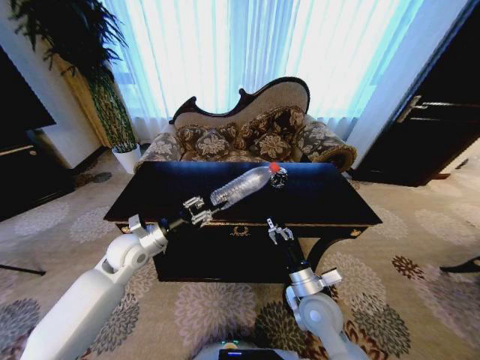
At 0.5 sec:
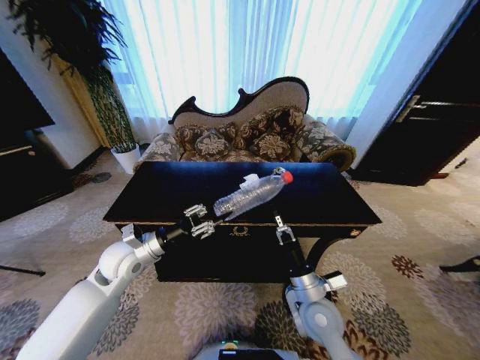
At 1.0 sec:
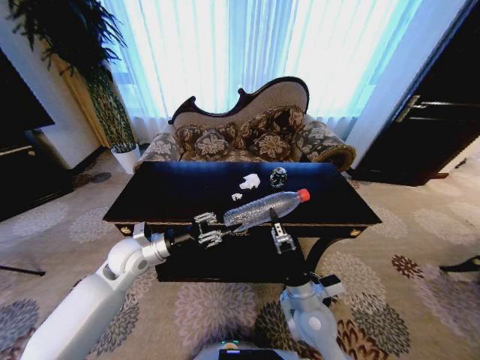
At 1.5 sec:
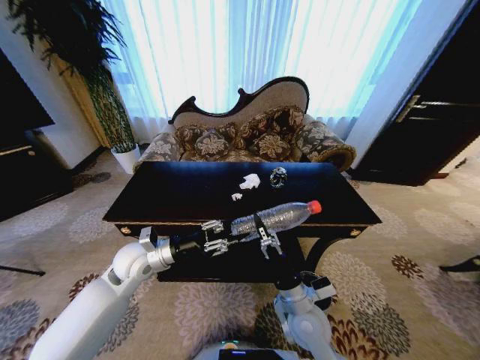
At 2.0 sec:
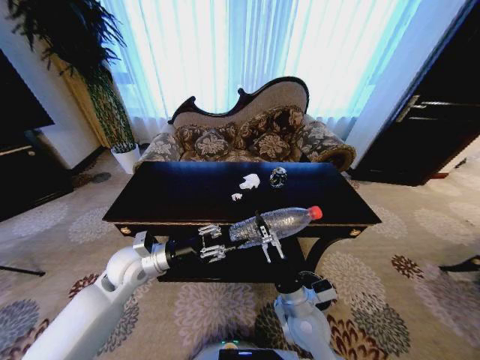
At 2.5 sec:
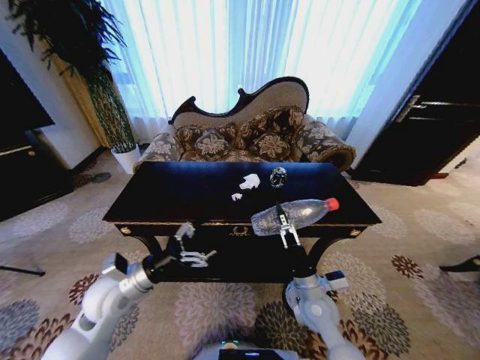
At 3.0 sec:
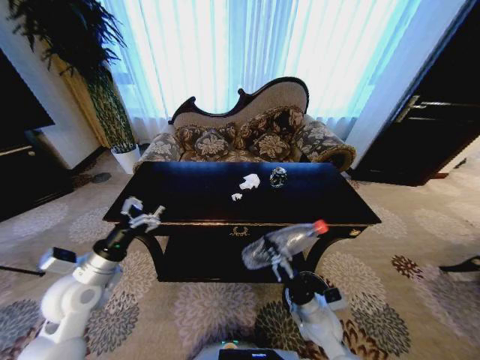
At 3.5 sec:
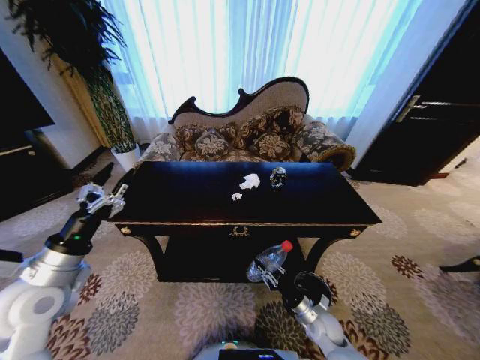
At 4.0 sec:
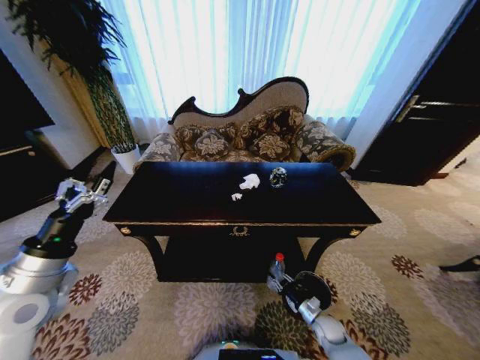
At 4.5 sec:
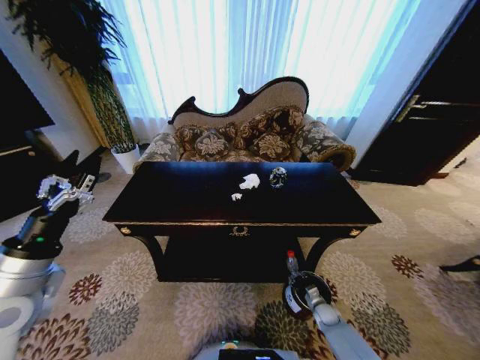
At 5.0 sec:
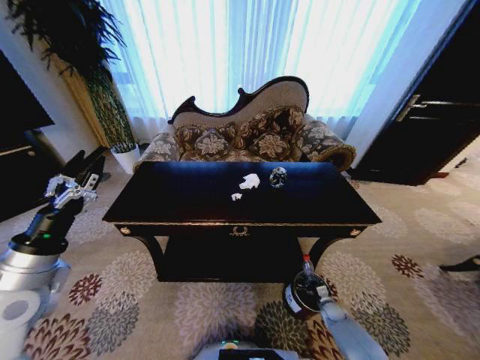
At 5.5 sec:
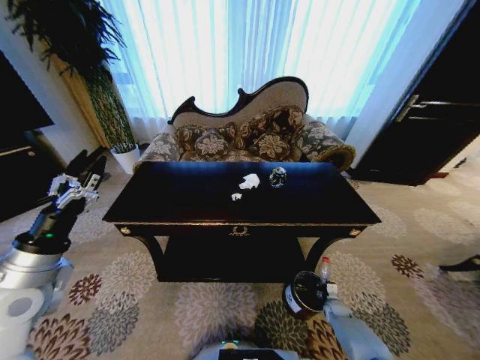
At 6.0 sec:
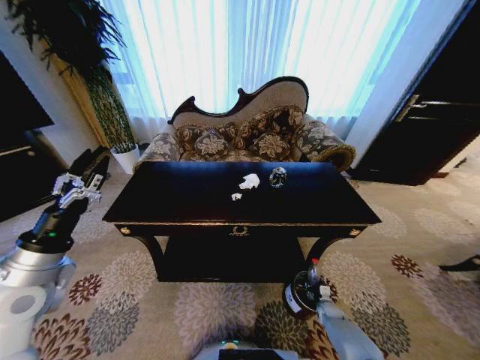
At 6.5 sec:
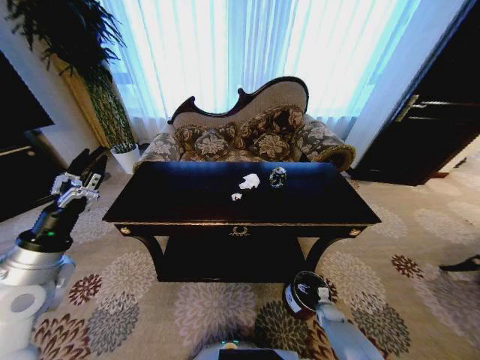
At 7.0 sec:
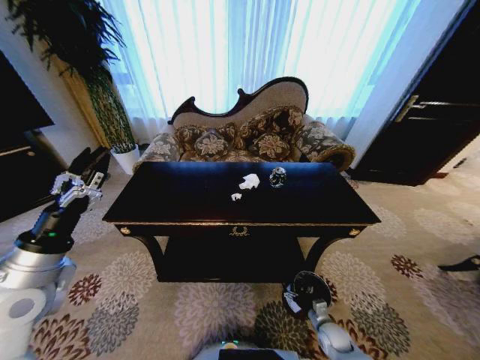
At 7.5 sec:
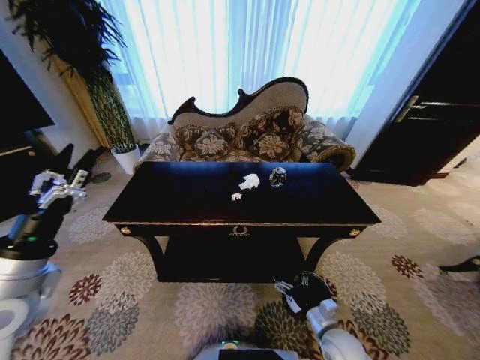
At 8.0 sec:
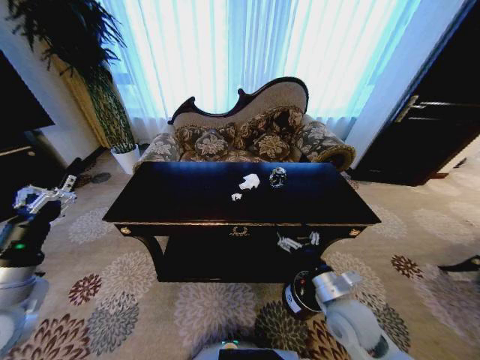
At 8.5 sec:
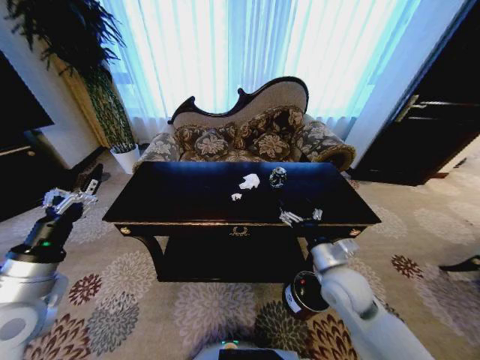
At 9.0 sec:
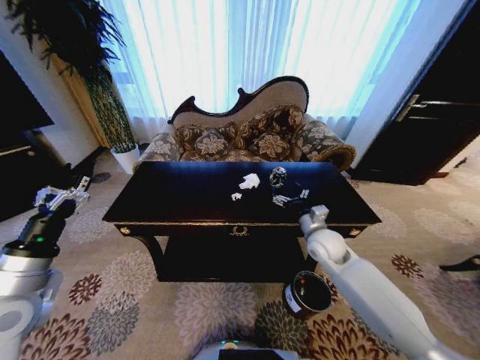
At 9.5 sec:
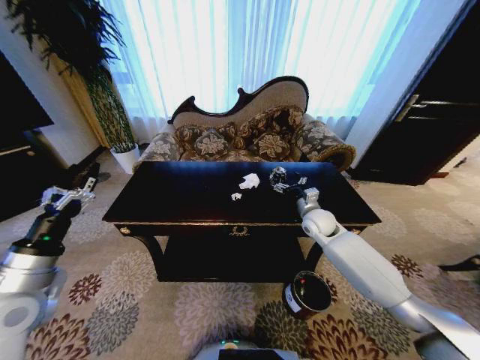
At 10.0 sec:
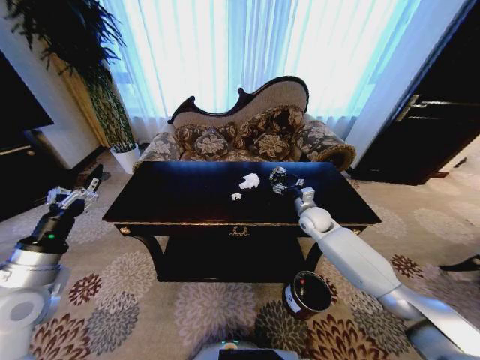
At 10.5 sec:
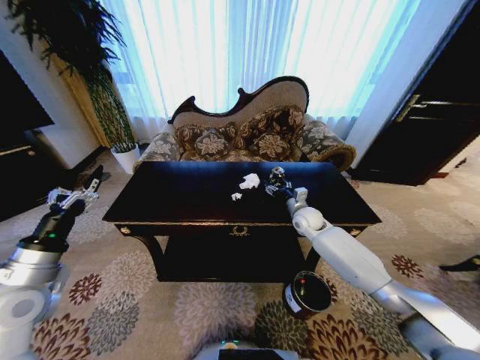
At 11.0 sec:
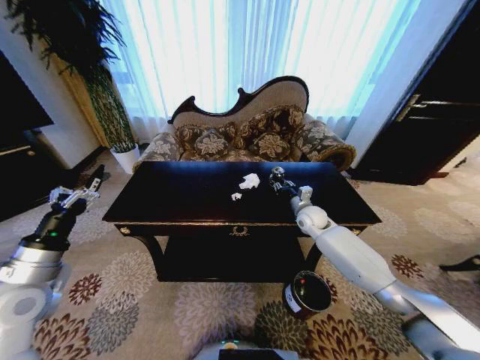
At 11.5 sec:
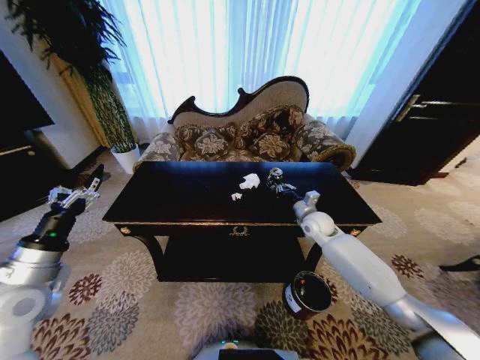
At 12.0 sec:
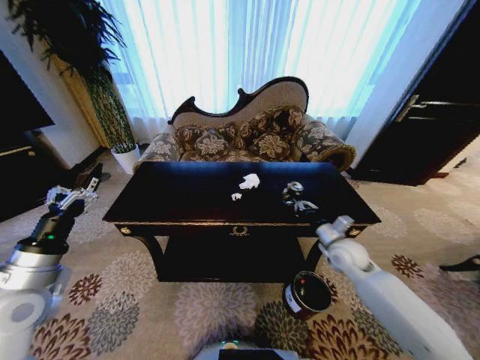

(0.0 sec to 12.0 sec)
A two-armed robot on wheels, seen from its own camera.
Task of the whole recording: Move to the front of the table and place the trash on the table into the trash bin.
0.0 sec - 2.0 sec: The right gripper closes its fingers.
2.0 sec - 4.0 sec: The right gripper shifts approximately 30 cm downward and to the right. The left gripper travels to the left, backward and upward by approximately 15 cm, and opens up.
4.0 sec - 6.0 sec: The right gripper heads to the right, downward and forward, covering approximately 10 cm.
6.0 sec - 8.0 sec: The right gripper travels upward and to the left by about 35 cm, and opens its fingers.
8.0 sec - 10.0 sec: The right gripper travels forward by roughly 30 cm.
10.0 sec - 12.0 sec: The right gripper goes some 15 cm backward and to the right, and closes up.

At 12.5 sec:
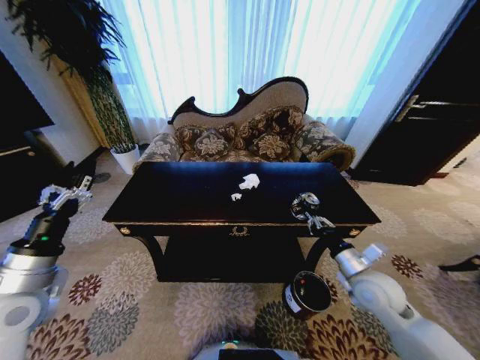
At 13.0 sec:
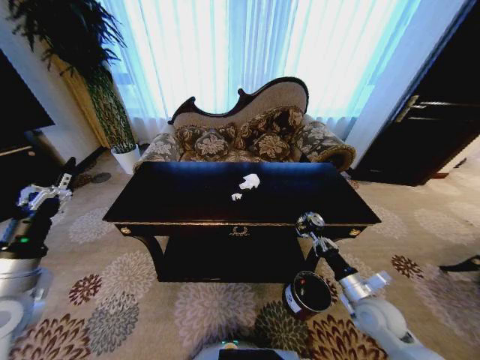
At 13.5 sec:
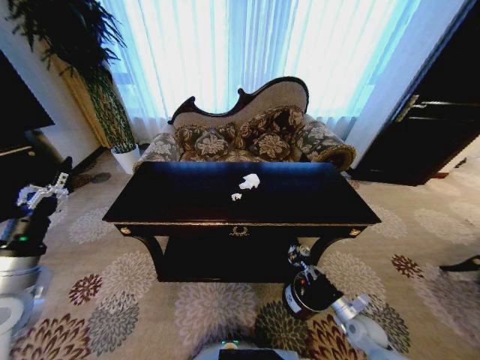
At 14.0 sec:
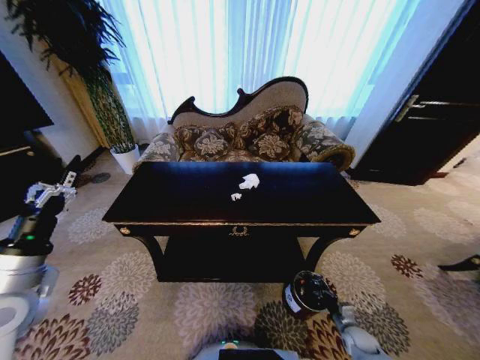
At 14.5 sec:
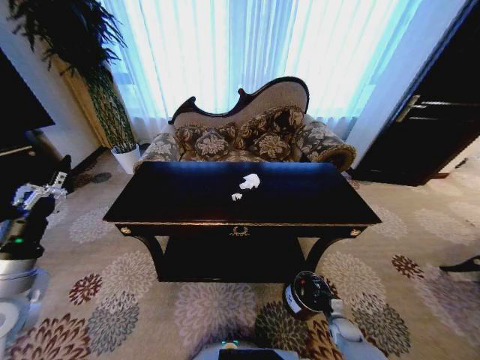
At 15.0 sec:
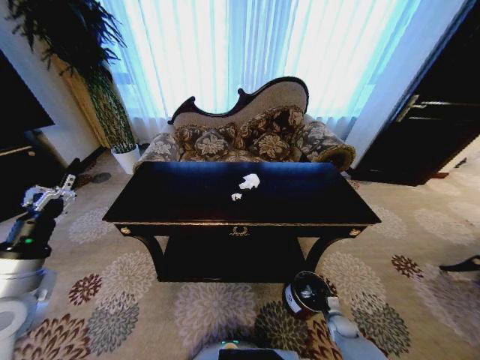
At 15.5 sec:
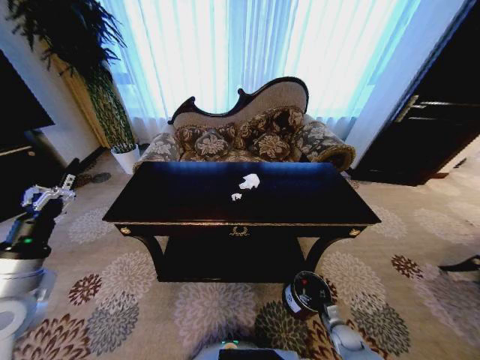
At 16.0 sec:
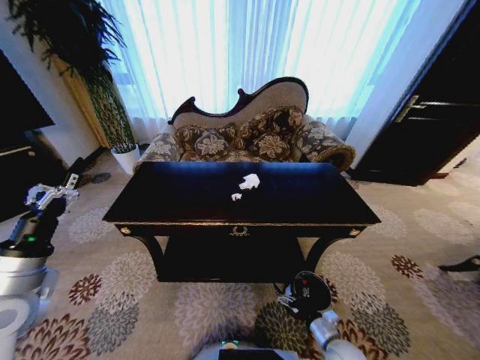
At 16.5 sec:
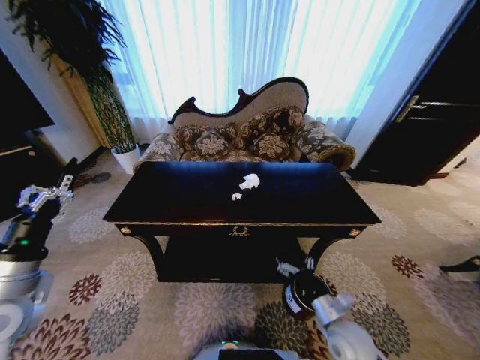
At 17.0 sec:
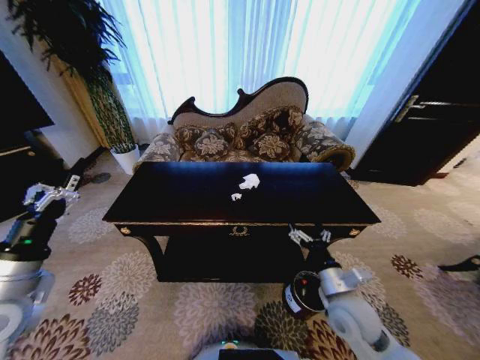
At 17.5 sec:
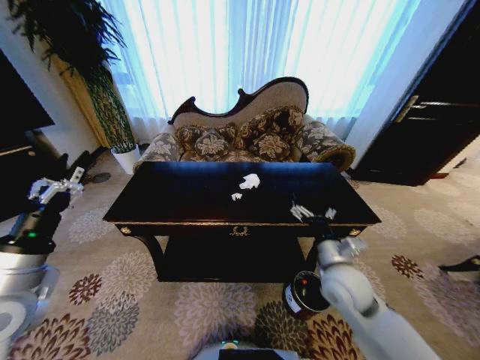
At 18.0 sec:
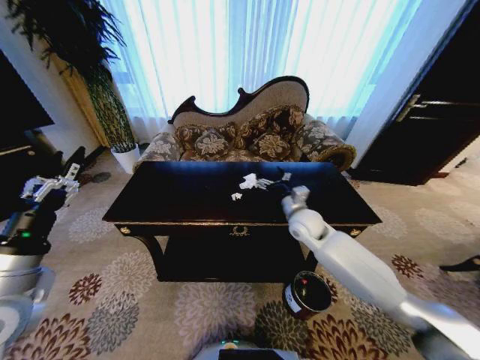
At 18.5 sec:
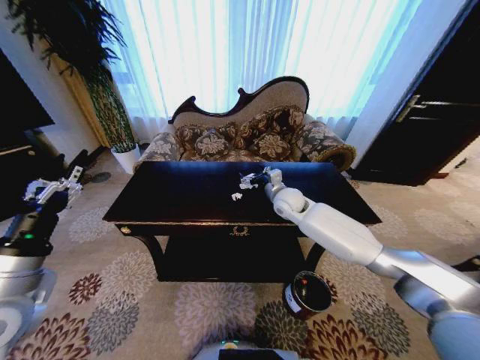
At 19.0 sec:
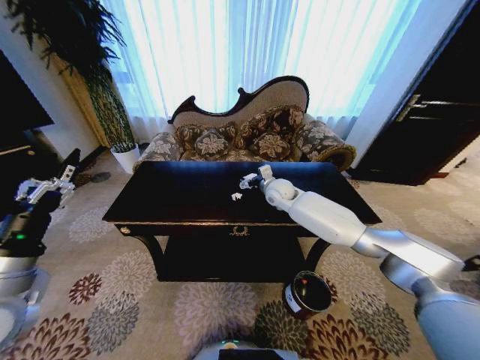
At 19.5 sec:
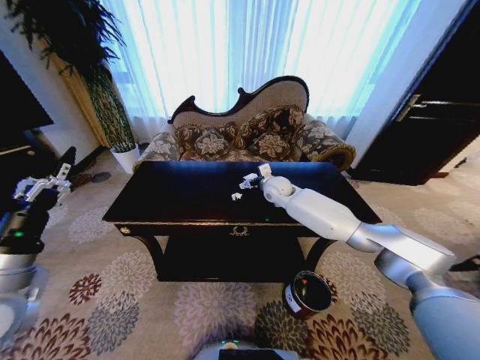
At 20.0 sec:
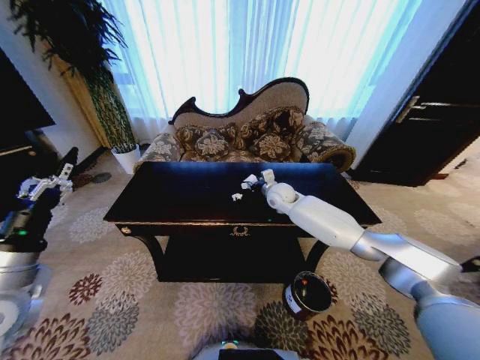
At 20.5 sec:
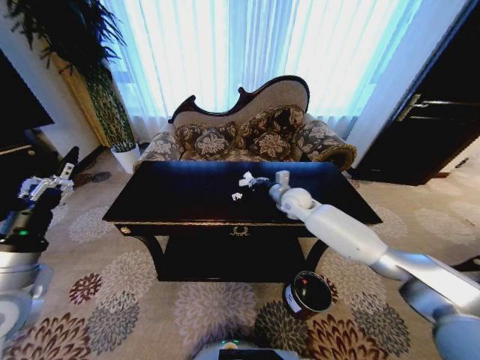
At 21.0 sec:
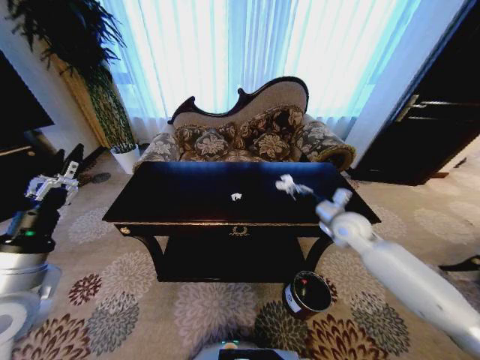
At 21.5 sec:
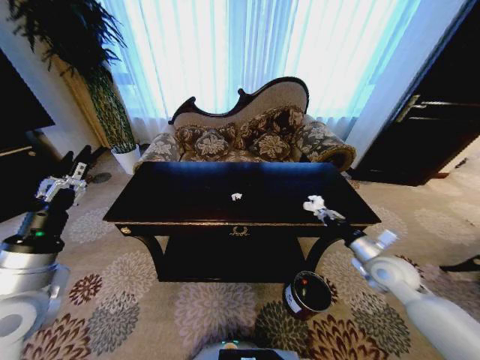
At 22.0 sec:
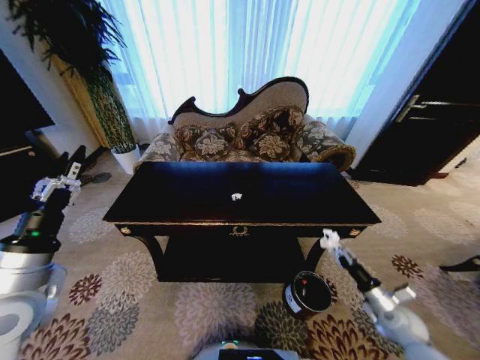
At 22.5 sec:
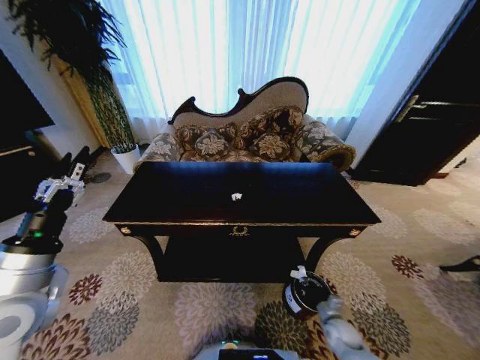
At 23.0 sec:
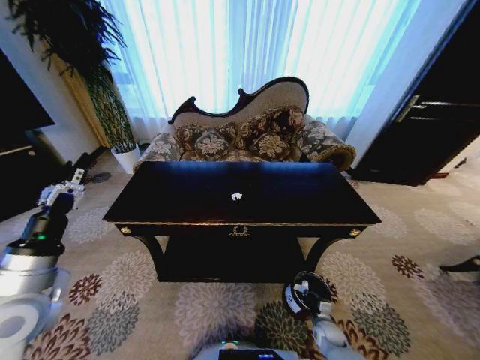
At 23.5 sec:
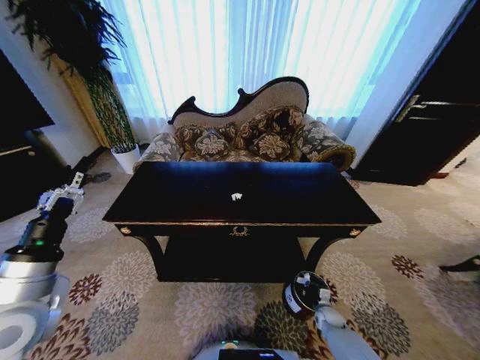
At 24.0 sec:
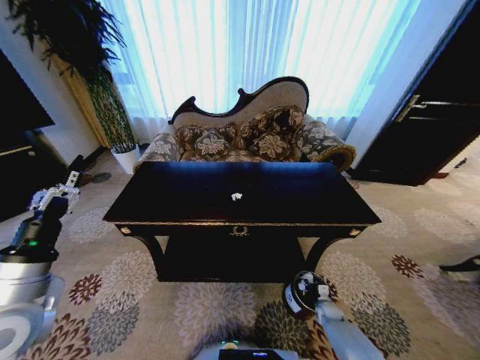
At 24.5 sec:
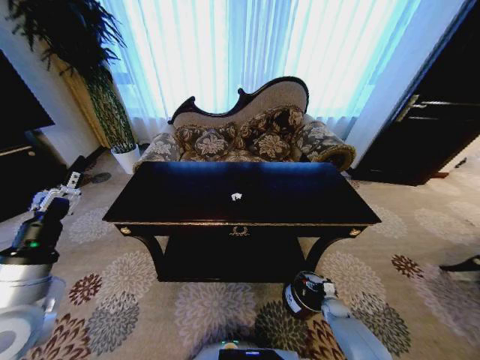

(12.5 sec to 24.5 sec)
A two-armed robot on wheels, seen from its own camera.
Task of the whole recording: Move to the front of the table and place the trash on the table into the trash bin.
12.5 sec - 14.5 sec: The right gripper goes about 35 cm downward.
14.5 sec - 16.5 sec: The right gripper is displaced upward and to the left by approximately 25 cm, and opens.
16.5 sec - 18.5 sec: The right gripper heads forward and upward, covering some 40 cm.
18.5 sec - 20.5 sec: The right gripper closes its fingers.
20.5 sec - 22.5 sec: The right gripper travels downward, backward and to the right by some 50 cm.
22.5 sec - 24.5 sec: The right gripper travels forward, downward and to the right by some 10 cm, and opens up.

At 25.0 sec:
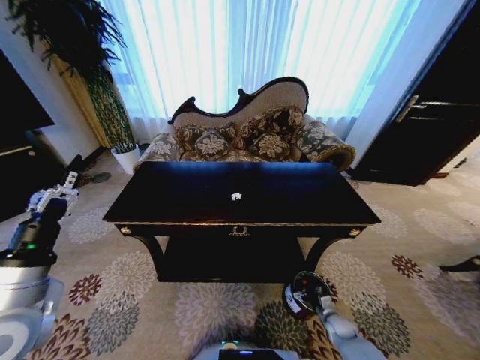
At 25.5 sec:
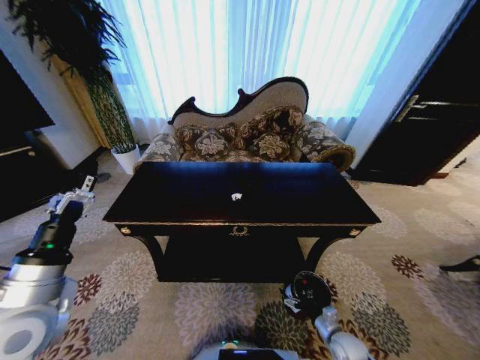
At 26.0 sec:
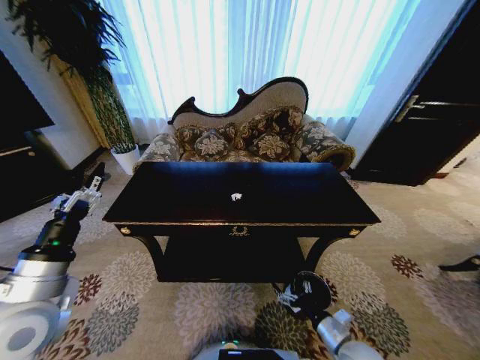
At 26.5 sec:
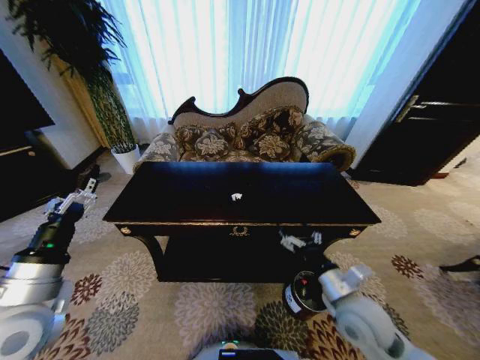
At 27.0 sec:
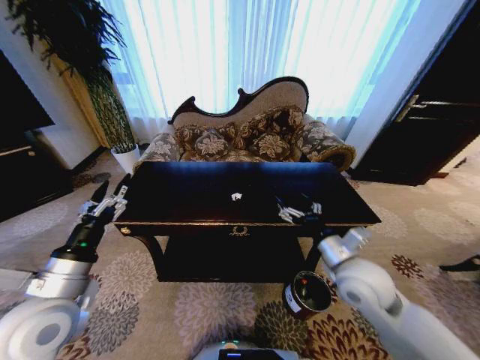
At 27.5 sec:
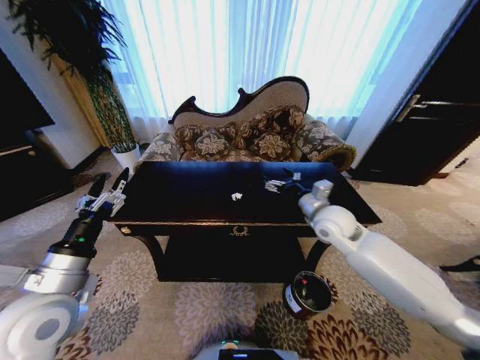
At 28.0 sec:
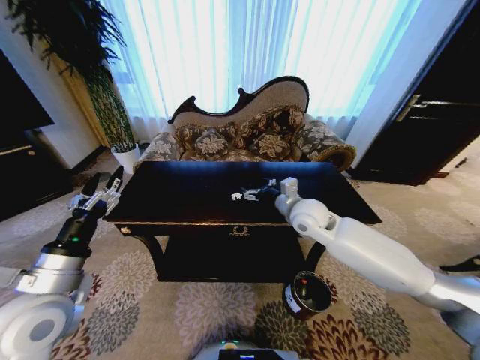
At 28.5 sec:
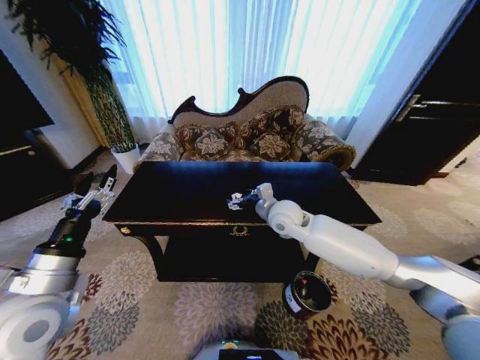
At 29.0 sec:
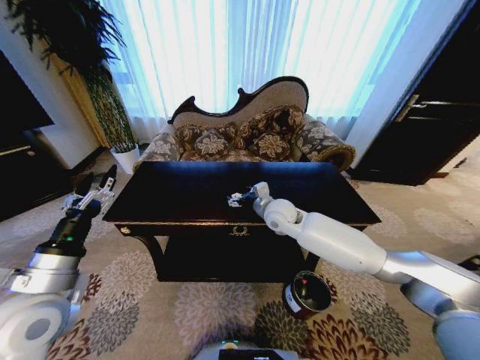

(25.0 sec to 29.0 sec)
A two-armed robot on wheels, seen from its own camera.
Task of the whole recording: Move to the front of the table and place the trash on the table into the trash bin.
25.0 sec - 27.0 sec: The right gripper goes roughly 40 cm upward.
27.0 sec - 29.0 sec: The right gripper goes about 25 cm forward and to the left.
